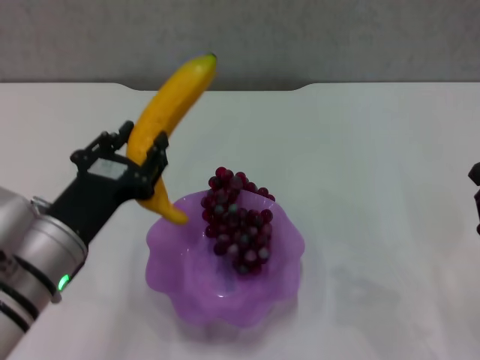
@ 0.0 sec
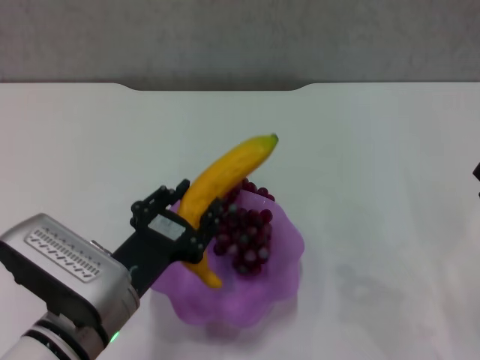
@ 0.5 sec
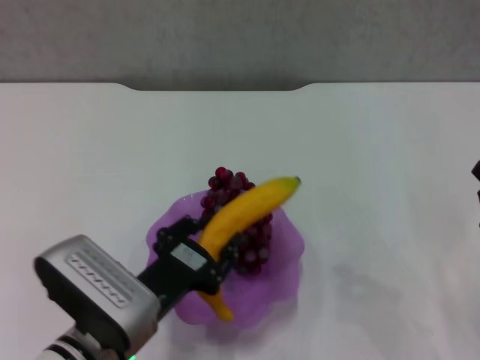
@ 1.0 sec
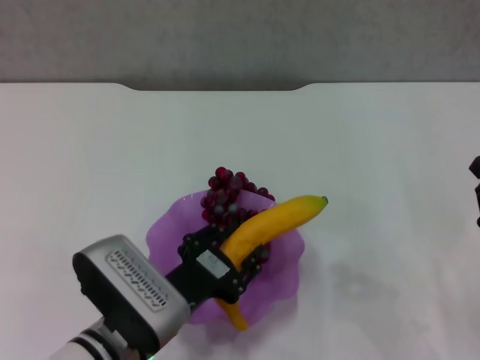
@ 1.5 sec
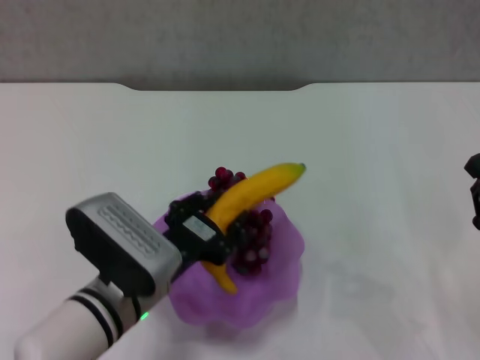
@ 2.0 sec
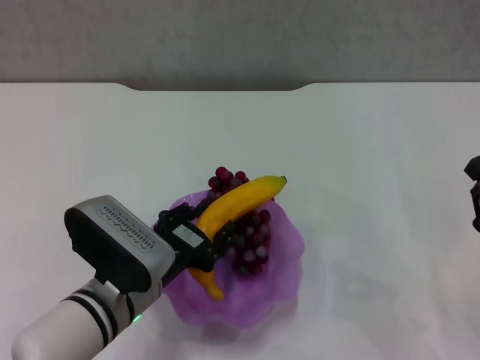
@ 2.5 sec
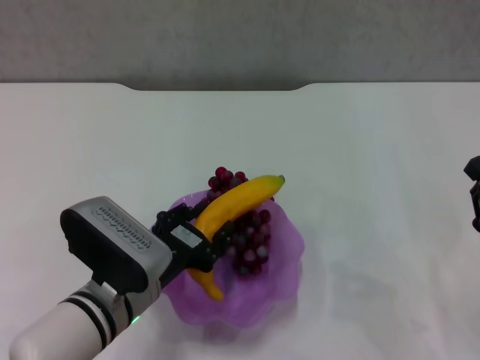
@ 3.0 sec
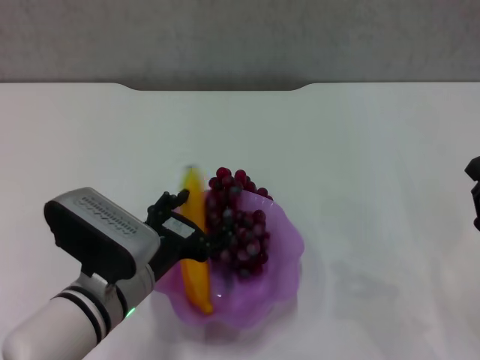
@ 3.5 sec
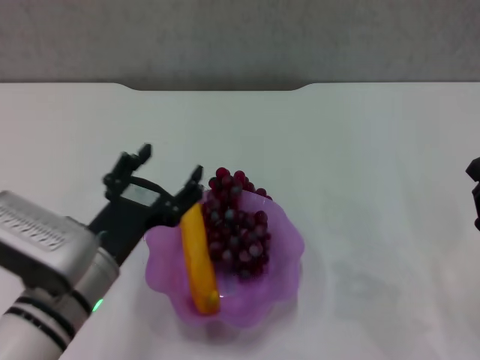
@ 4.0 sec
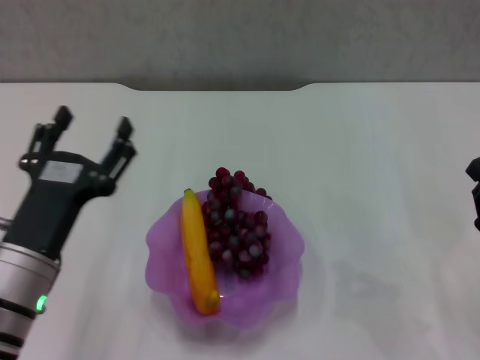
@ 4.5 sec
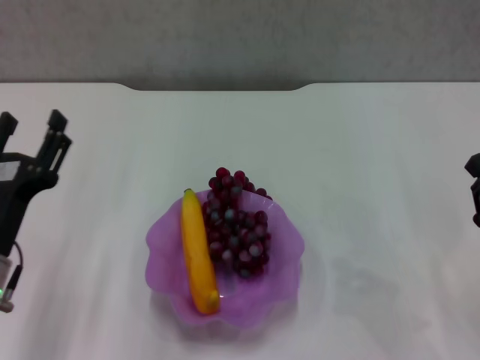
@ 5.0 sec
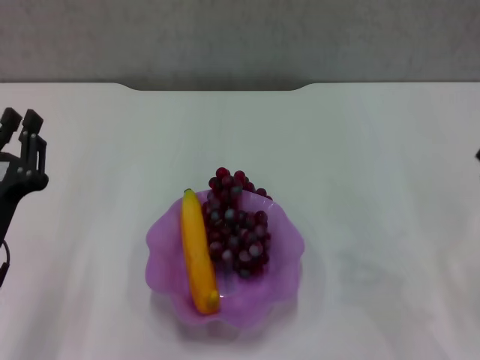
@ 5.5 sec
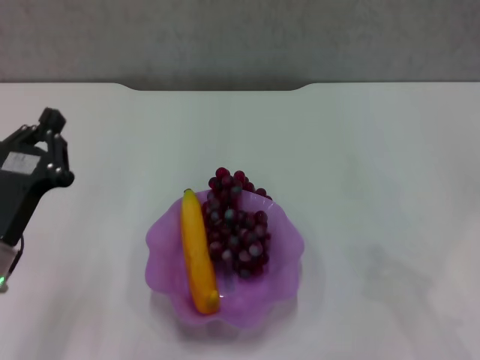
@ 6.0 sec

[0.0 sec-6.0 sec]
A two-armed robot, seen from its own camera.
Step, 0.0 sec to 3.5 sec: Place the banana in the purple plate with left gripper.
0.0 sec to 2.0 sec: The left gripper goes about 5 cm to the right.
2.0 sec to 4.0 sec: The left gripper opens.
4.0 sec to 6.0 sec: The left gripper goes roughly 10 cm to the left, and closes up.
